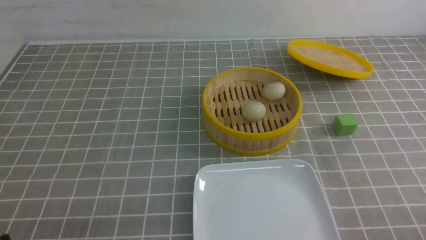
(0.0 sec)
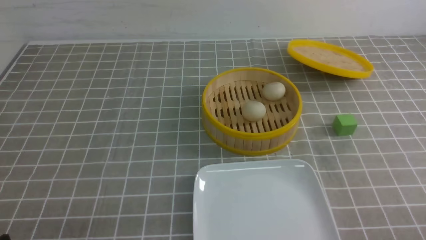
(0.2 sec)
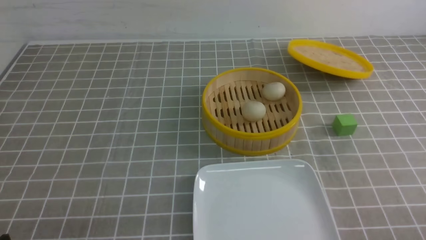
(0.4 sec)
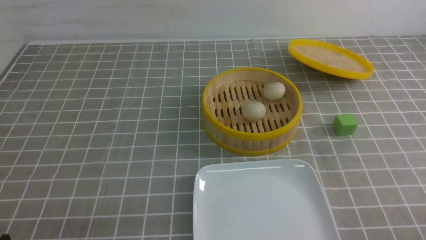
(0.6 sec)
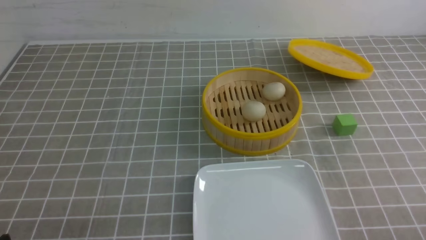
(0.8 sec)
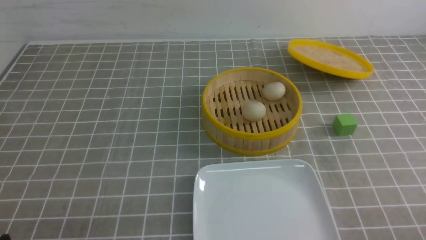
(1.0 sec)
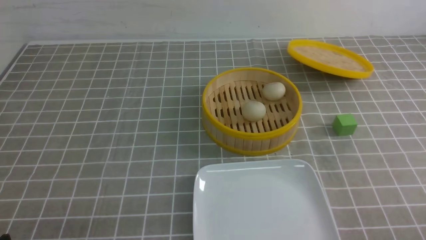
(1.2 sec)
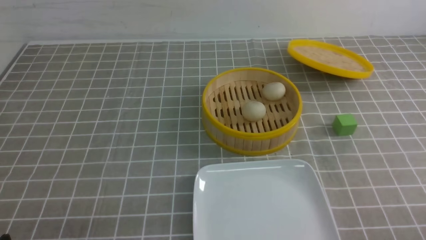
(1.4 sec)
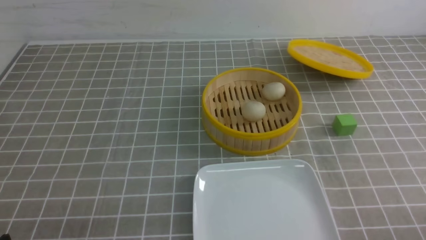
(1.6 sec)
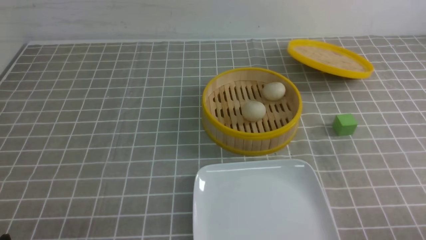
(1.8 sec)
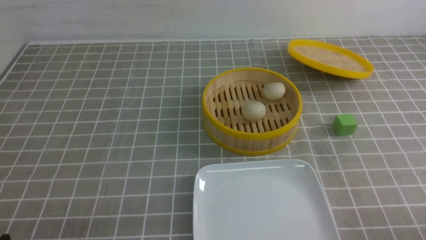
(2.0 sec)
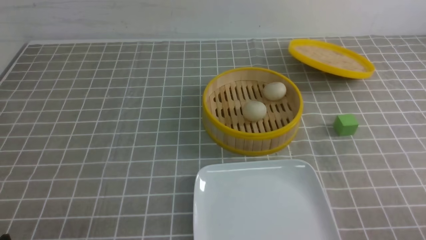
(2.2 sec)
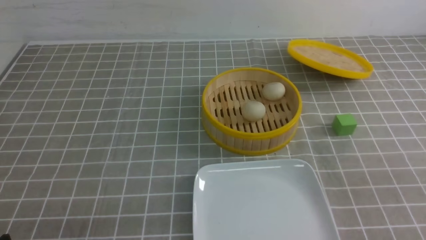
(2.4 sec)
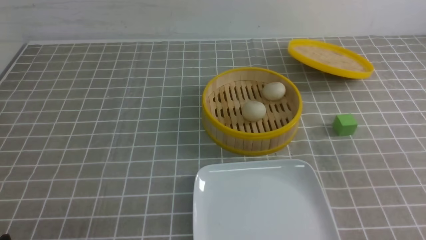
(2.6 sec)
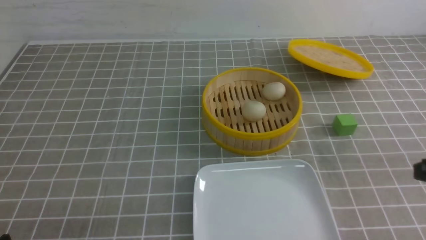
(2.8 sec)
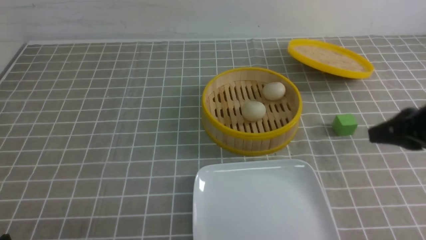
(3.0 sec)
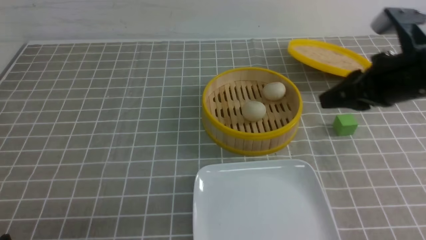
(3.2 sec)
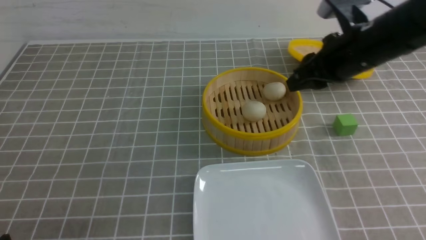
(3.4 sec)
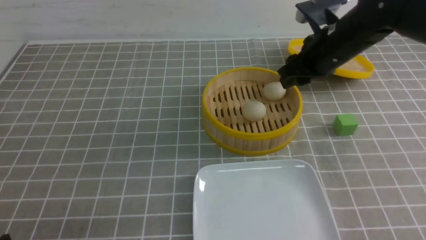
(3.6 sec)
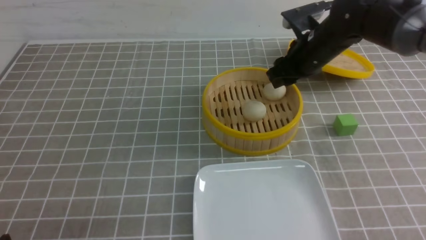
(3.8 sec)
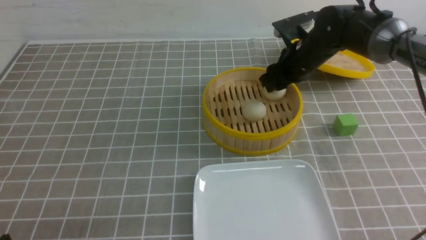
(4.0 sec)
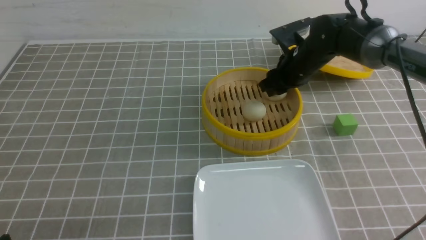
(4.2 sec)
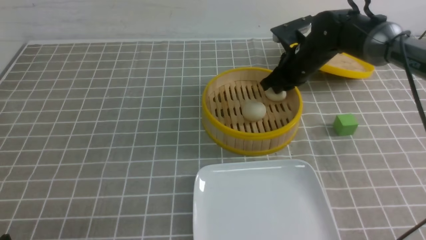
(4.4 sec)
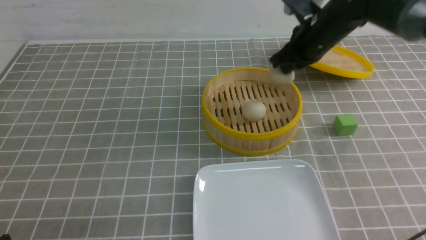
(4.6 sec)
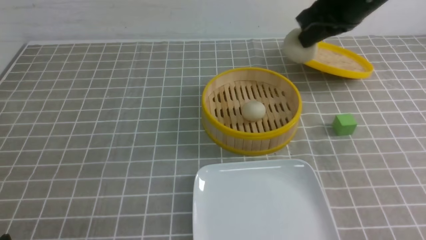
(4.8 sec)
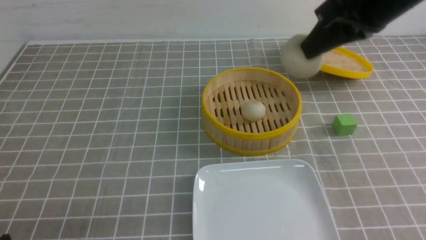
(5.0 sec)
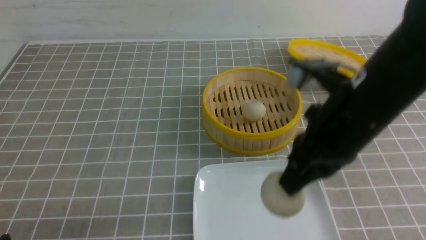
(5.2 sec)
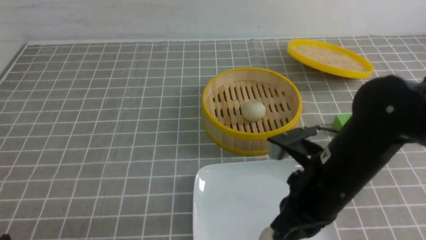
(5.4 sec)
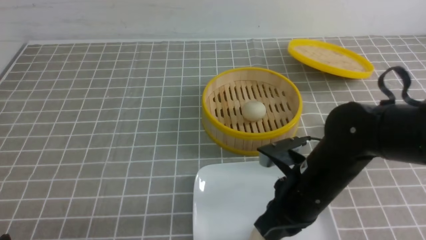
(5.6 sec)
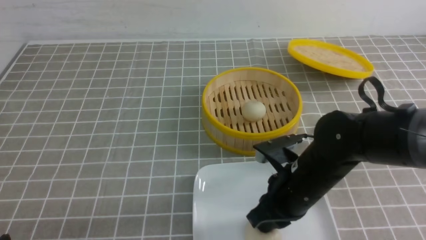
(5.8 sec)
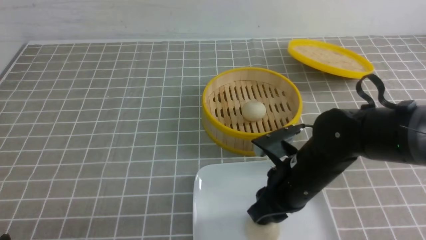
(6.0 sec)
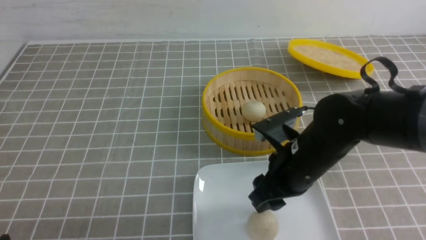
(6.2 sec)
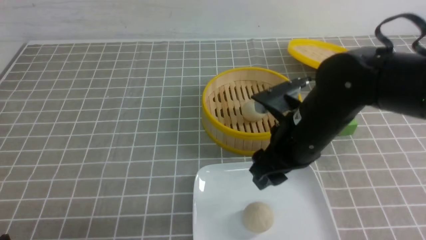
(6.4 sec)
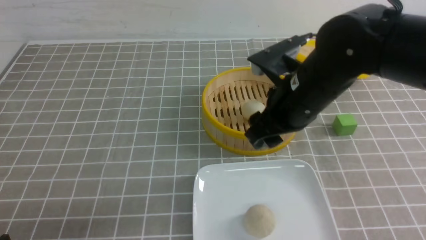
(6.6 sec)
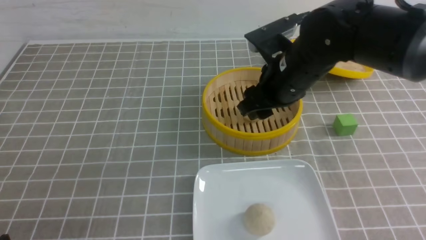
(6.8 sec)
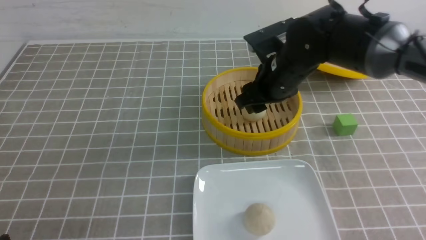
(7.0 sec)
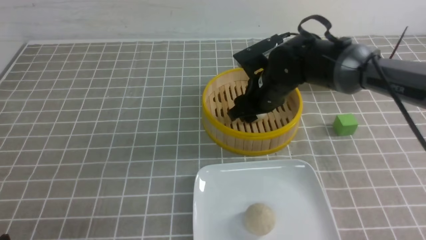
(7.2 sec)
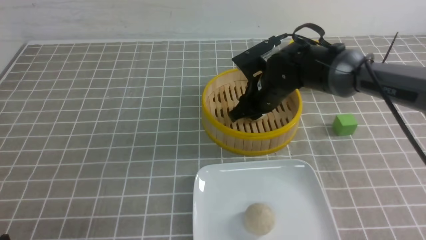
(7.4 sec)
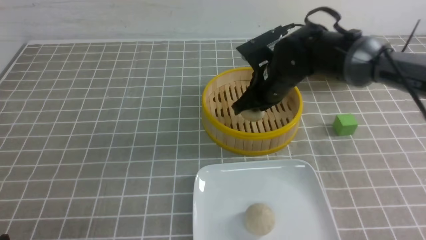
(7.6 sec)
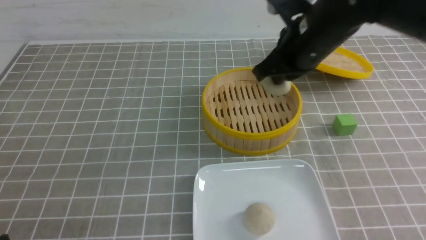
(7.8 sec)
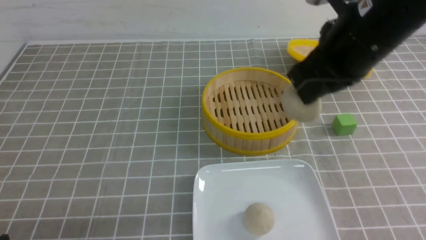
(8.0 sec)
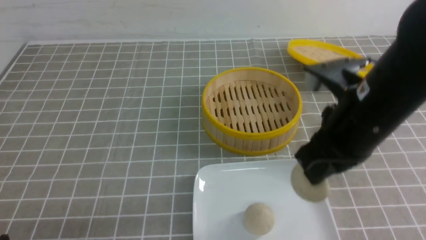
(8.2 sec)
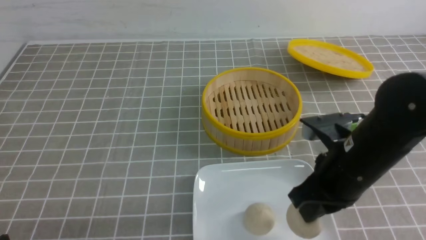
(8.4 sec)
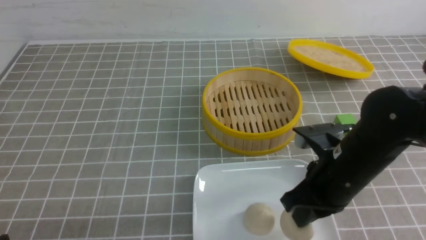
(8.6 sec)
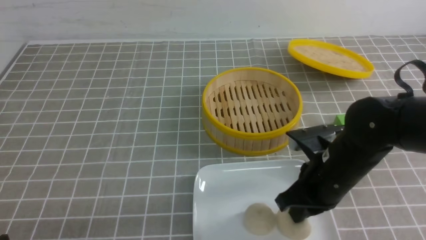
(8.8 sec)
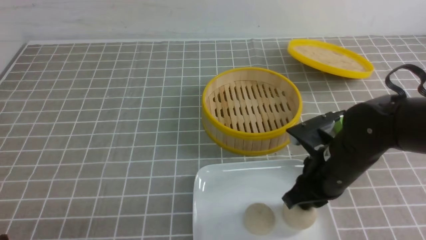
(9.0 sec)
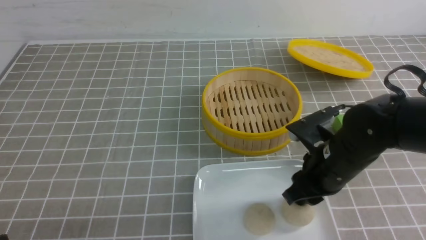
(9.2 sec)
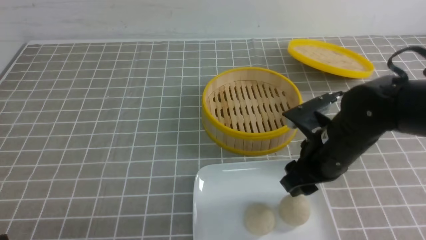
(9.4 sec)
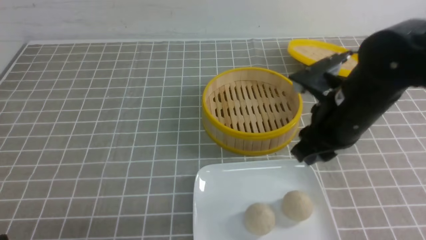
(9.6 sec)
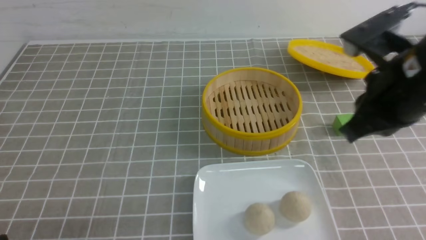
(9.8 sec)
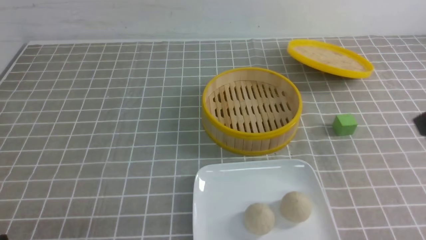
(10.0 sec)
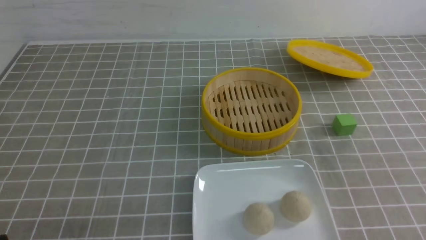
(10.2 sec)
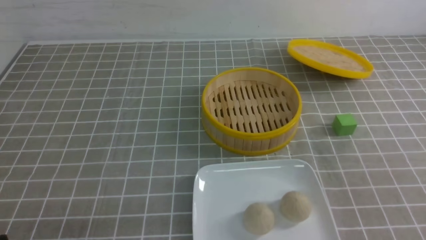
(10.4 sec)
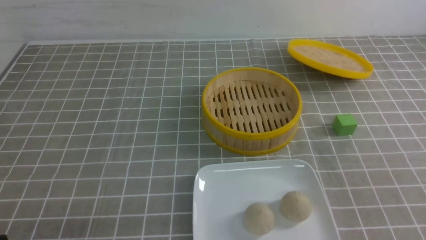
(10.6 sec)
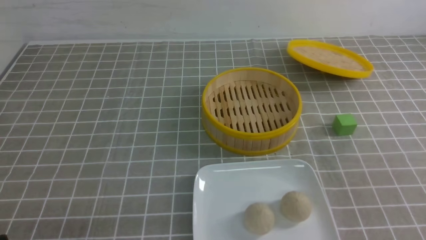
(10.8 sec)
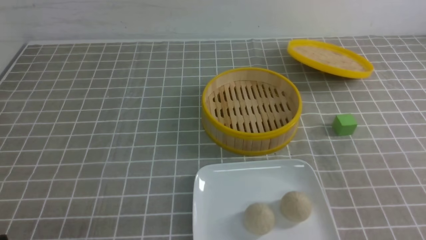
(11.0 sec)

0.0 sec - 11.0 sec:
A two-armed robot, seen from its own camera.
Step, 0.0 sec - 4.4 sec: use the right arm to grab the steamed stuffed bun that is closest to it.
Step, 4.6 sec - 6.0 sec: use the right arm to put the steamed stuffed bun into the plate.
Step, 6.2 sec - 7.4 sec: use the right arm to grab the steamed stuffed bun that is closest to it.
Step, 7.8 sec - 9.2 sec: use the right arm to put the steamed stuffed bun into the plate.
1.6 sec - 3.2 sec: The right gripper travels forward and upward by approximately 30 cm, and closes and opens again.
3.2 sec - 4.8 sec: The right gripper shifts some 10 cm upward, forward and to the left, and closes up.
4.8 sec - 6.2 sec: The right gripper shifts about 20 cm downward, backward and to the left, and opens.
6.2 sec - 7.8 sec: The right gripper is displaced upward and forward by roughly 15 cm, and closes.
7.8 sec - 9.4 sec: The right gripper heads downward and backward, covering some 10 cm, and opens its fingers.
9.4 sec - 11.0 sec: The right gripper moves backward and to the right, about 25 cm, and closes.

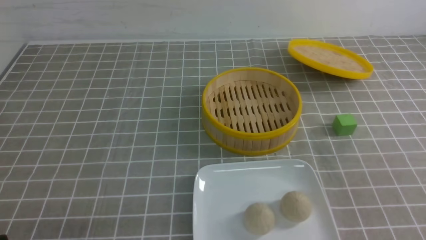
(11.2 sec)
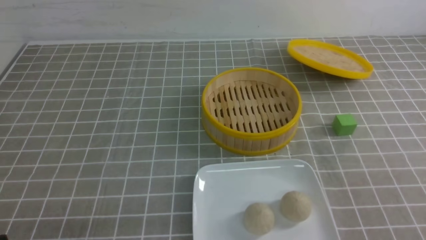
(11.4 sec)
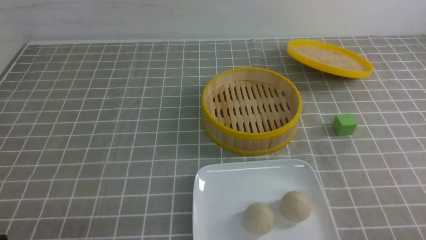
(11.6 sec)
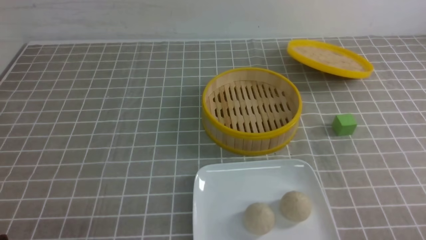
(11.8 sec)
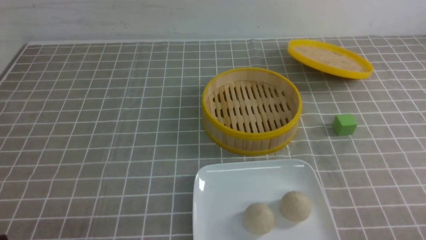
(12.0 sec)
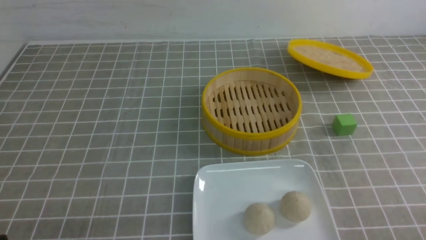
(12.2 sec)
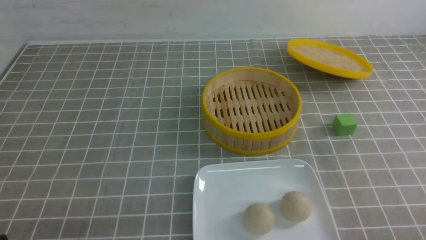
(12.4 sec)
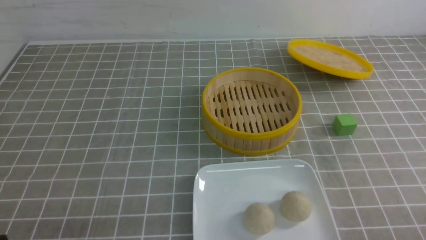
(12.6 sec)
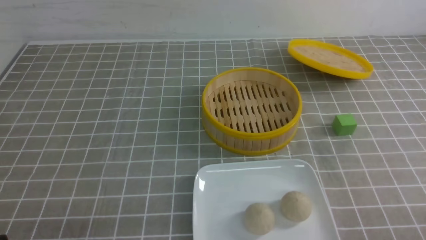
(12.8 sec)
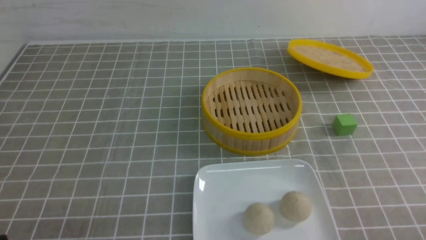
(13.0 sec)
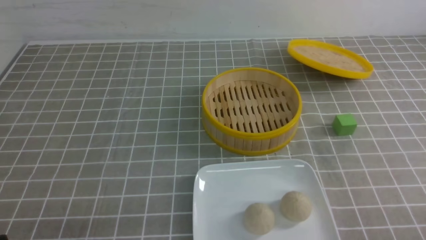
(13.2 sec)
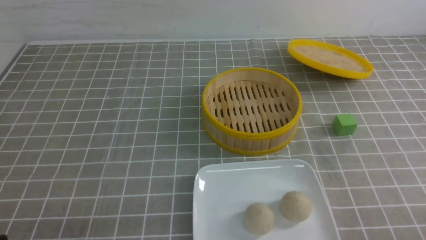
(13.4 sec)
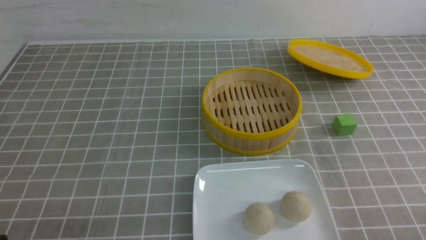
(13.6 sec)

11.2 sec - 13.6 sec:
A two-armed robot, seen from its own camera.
12.4 sec - 13.6 sec: Neither gripper changes place.
